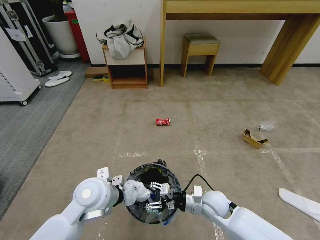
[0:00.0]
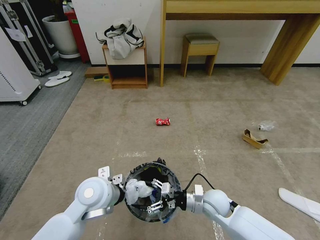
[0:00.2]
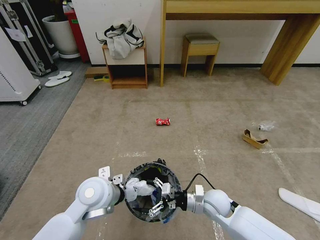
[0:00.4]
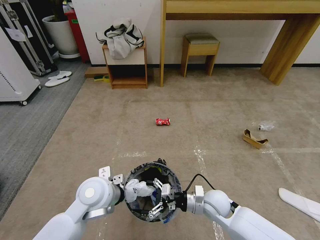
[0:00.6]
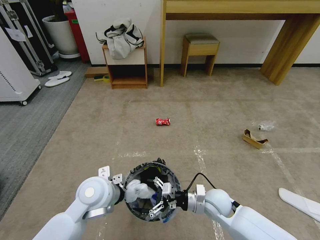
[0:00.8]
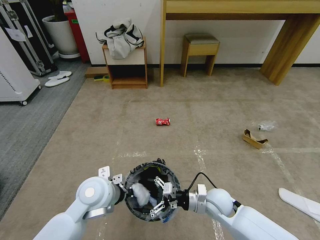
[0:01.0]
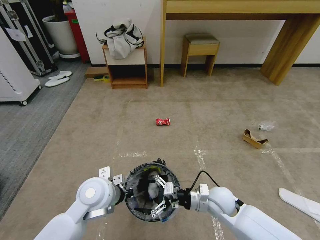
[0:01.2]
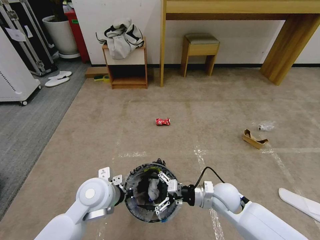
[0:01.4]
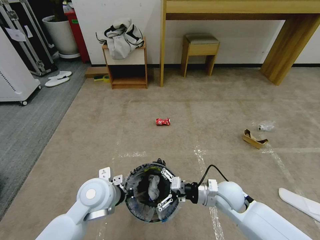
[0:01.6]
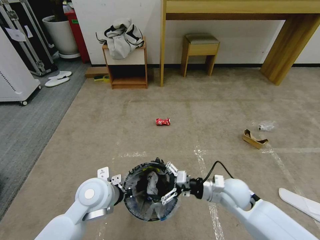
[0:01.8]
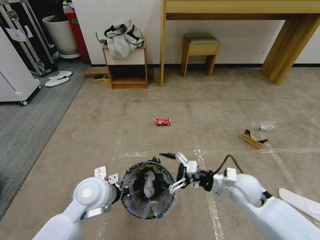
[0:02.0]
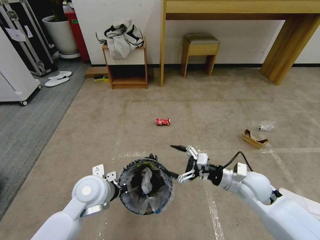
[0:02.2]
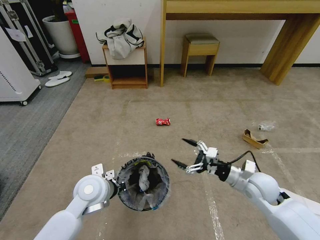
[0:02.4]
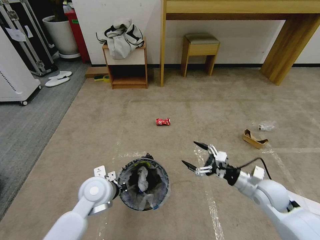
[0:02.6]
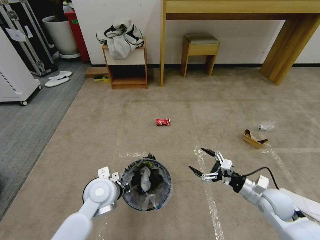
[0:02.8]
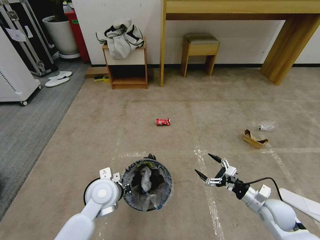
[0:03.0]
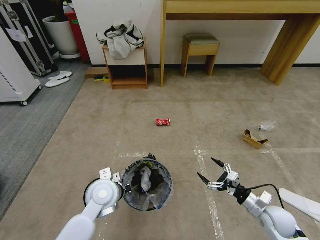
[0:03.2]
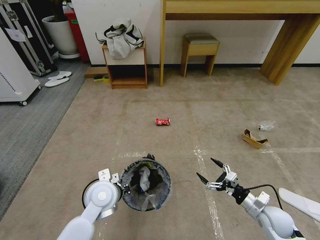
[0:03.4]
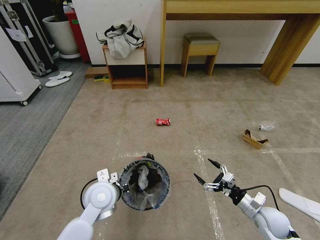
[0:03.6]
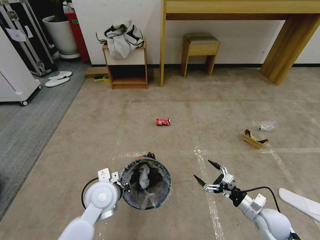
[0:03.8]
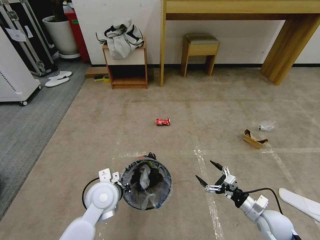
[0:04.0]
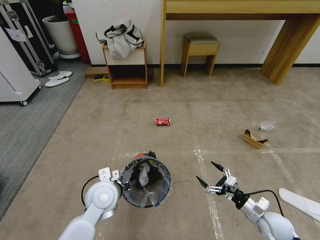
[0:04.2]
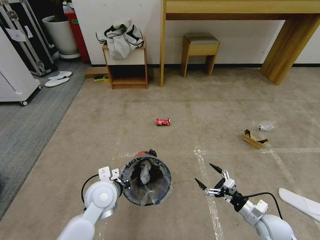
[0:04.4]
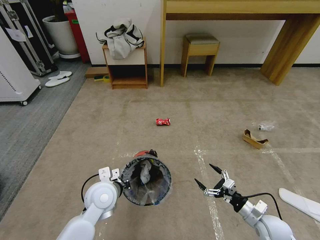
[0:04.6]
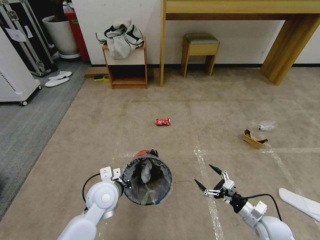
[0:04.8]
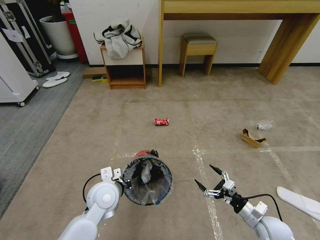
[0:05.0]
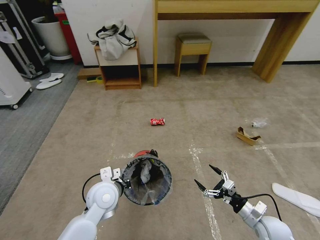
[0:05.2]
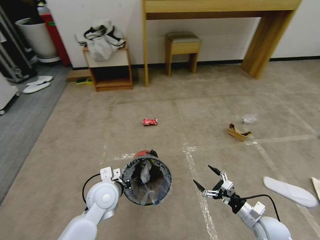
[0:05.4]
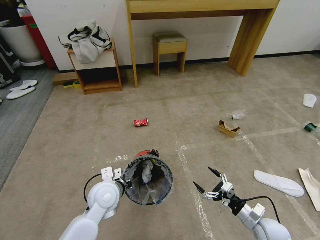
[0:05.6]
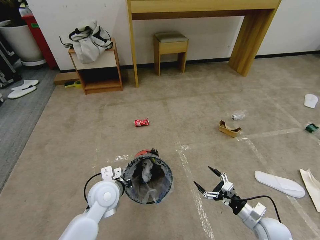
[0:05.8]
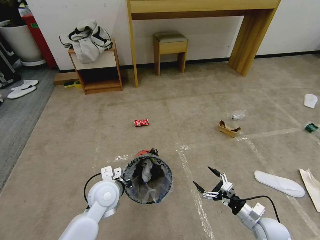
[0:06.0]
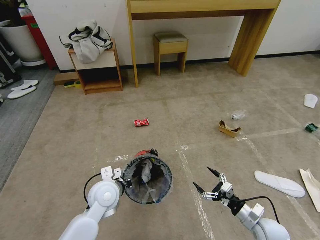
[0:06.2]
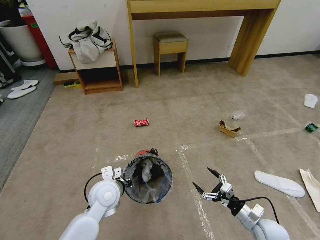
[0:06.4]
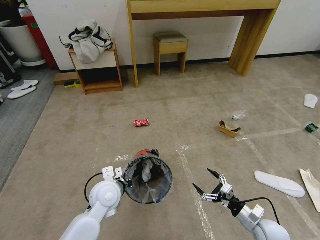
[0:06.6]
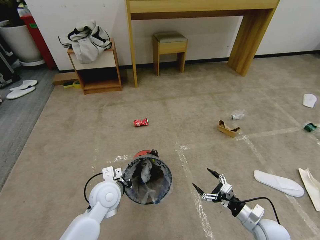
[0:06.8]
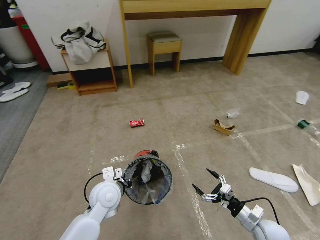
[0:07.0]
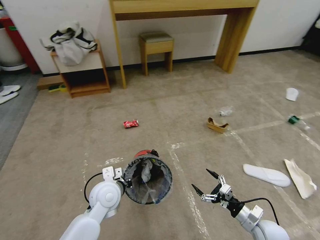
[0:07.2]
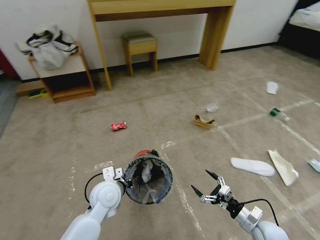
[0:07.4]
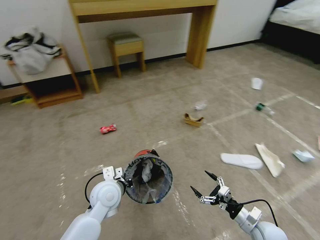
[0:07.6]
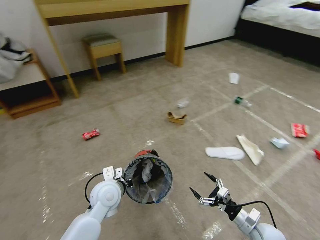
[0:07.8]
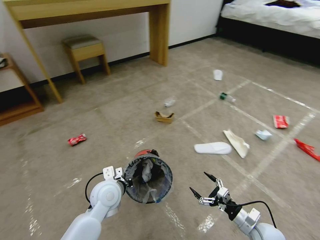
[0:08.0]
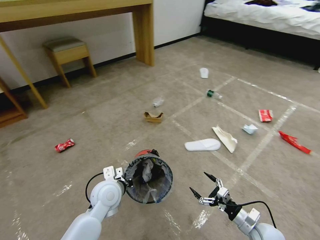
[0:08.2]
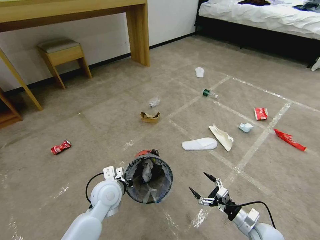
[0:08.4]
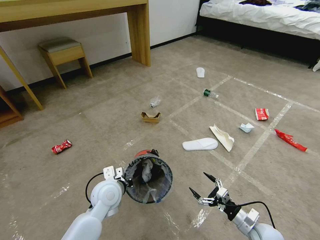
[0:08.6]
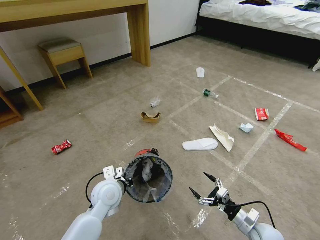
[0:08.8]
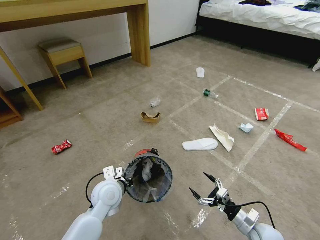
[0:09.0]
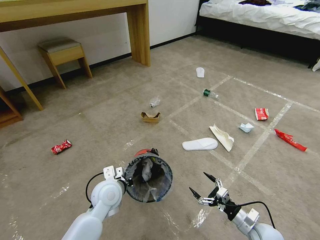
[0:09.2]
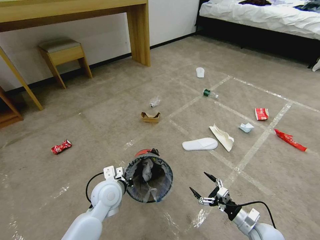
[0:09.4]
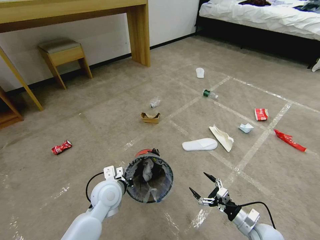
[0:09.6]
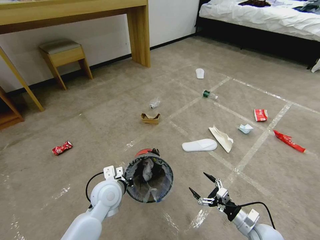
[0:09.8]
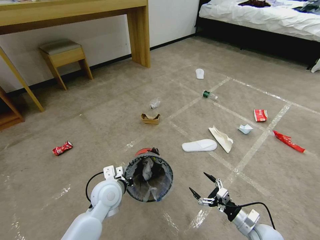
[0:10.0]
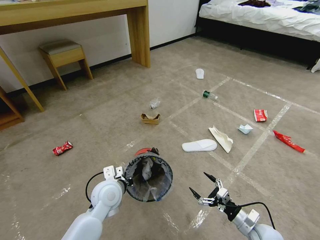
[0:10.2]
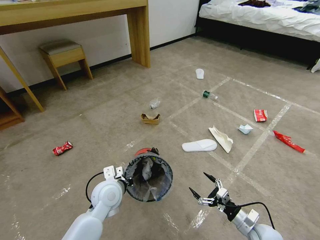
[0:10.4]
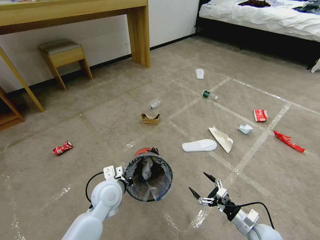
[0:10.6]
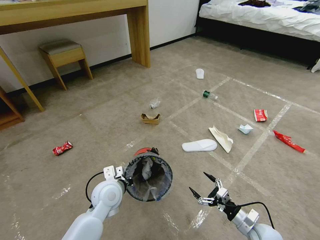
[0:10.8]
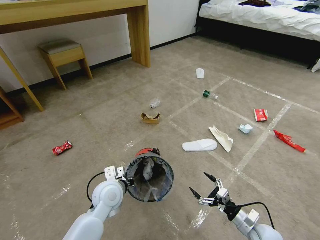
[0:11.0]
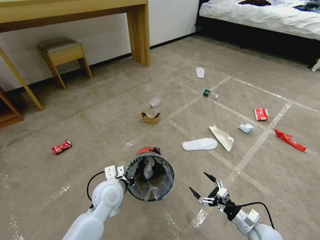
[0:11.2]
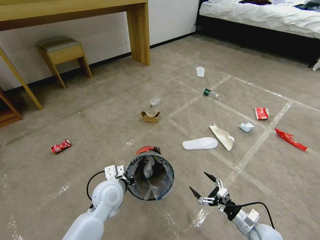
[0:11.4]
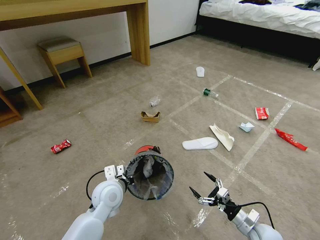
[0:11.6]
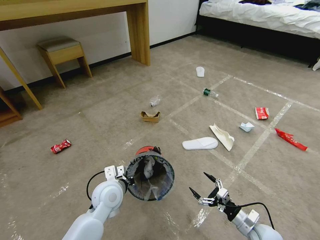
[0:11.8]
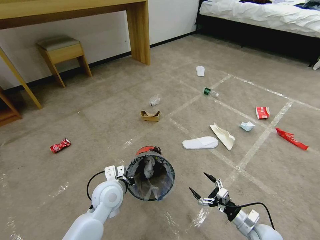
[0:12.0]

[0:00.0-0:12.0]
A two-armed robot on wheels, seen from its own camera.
Task of the whole recording: Pick up the trash bin and place the garbage on the floor into it.
0:00.0 to 0:01.6: The right gripper moves upward, about 5 cm, and opens.
0:01.6 to 0:03.0: The right gripper moves to the right, about 15 cm.
0:03.0 to 0:04.4: The right gripper changes place by about 5 cm.
0:09.0 to 0:12.0: The two grippers keep their place.

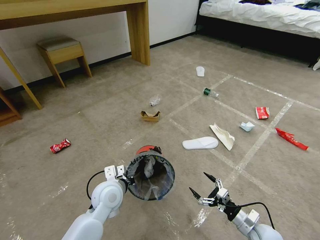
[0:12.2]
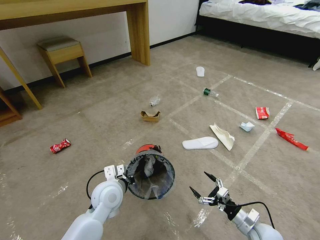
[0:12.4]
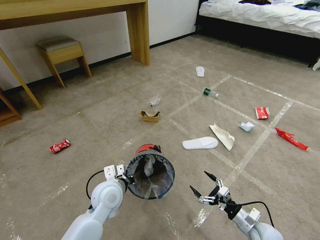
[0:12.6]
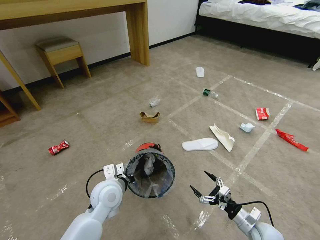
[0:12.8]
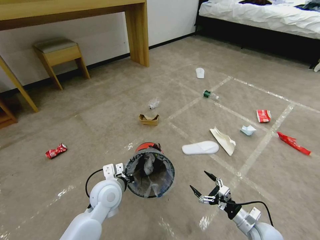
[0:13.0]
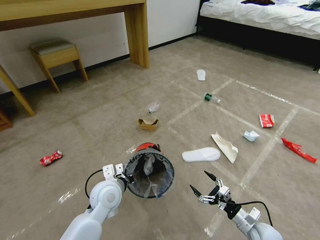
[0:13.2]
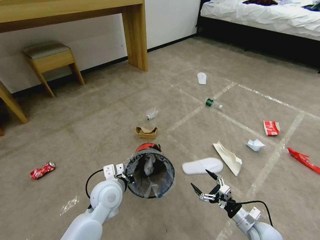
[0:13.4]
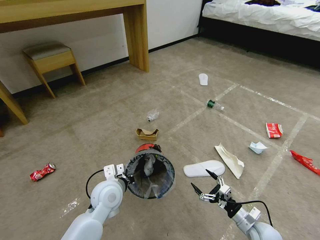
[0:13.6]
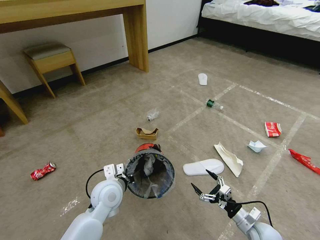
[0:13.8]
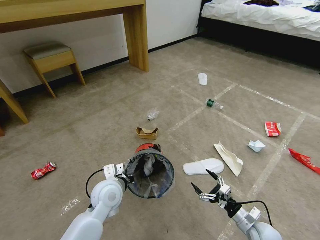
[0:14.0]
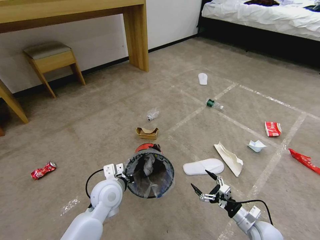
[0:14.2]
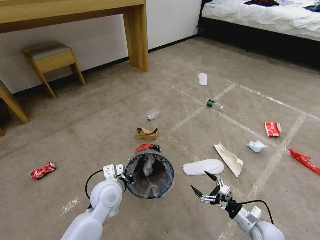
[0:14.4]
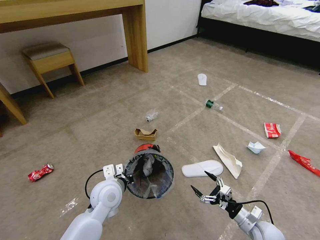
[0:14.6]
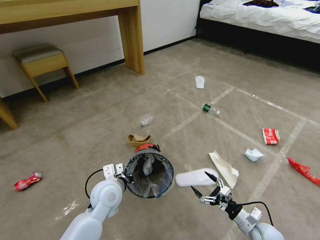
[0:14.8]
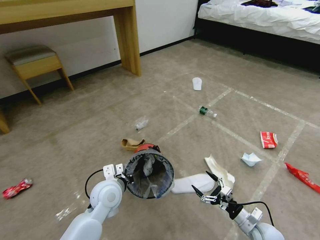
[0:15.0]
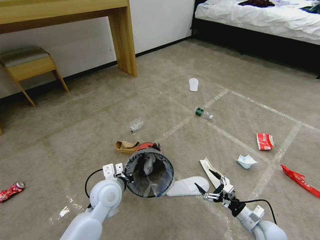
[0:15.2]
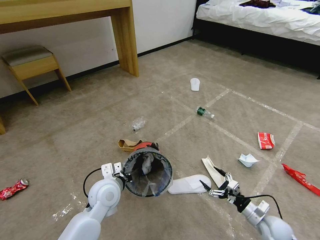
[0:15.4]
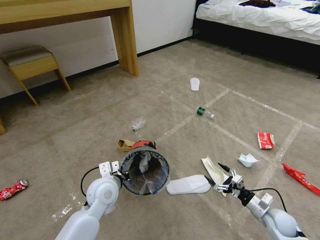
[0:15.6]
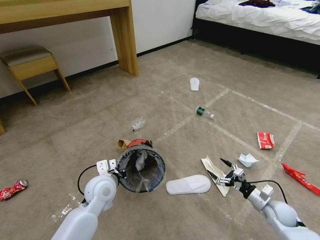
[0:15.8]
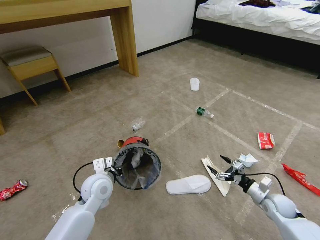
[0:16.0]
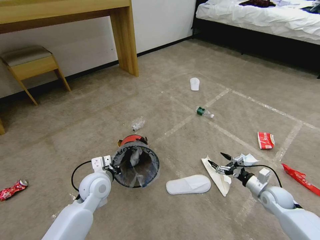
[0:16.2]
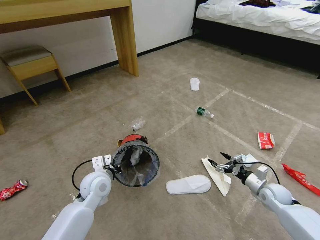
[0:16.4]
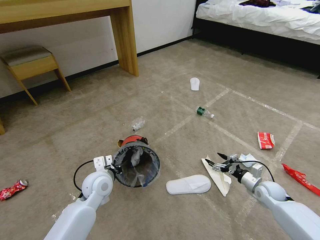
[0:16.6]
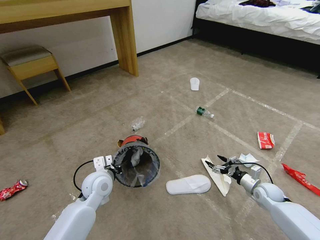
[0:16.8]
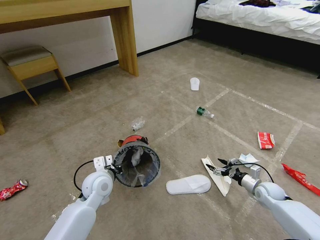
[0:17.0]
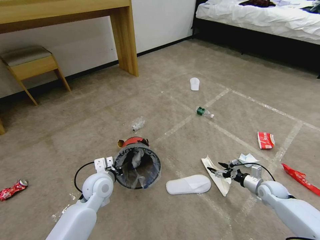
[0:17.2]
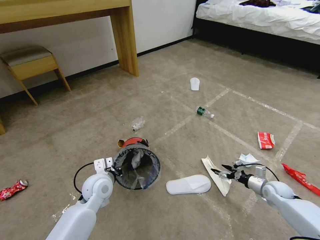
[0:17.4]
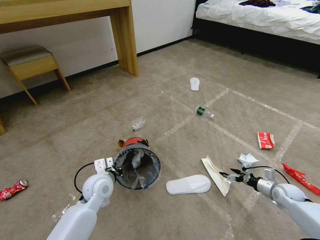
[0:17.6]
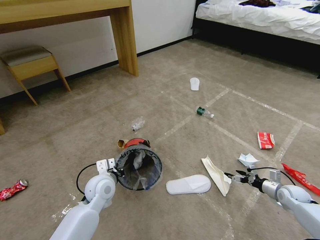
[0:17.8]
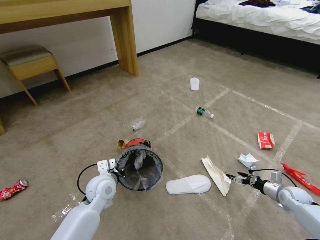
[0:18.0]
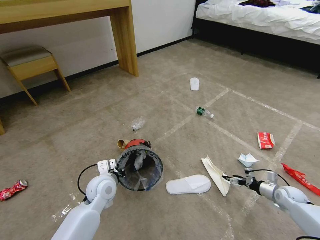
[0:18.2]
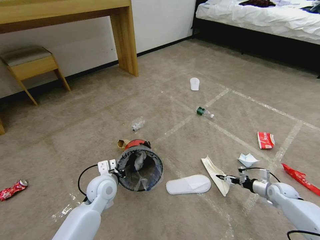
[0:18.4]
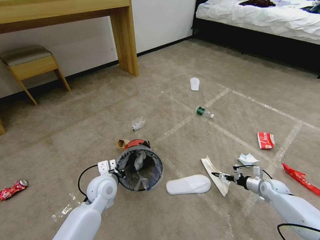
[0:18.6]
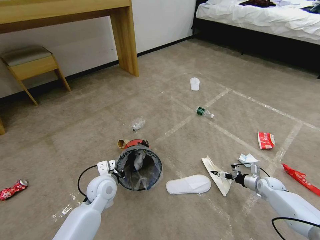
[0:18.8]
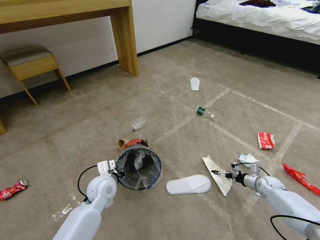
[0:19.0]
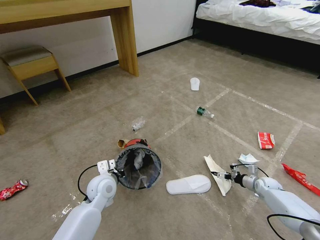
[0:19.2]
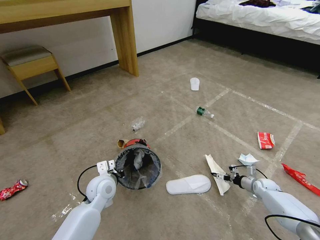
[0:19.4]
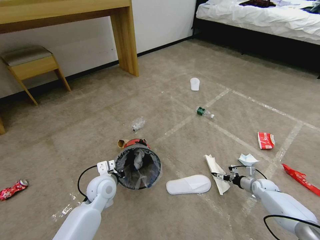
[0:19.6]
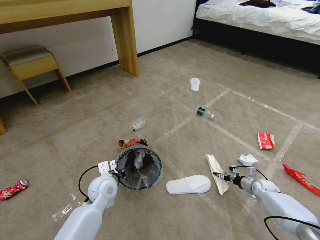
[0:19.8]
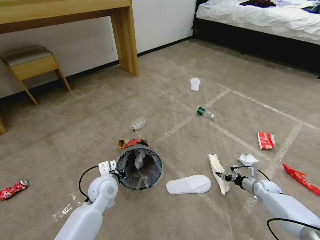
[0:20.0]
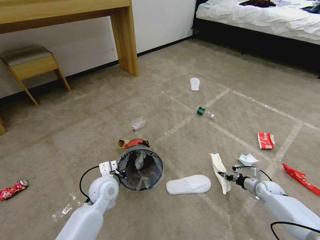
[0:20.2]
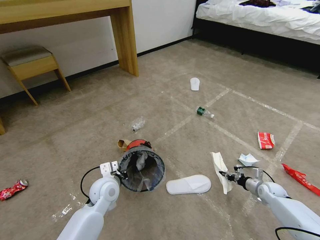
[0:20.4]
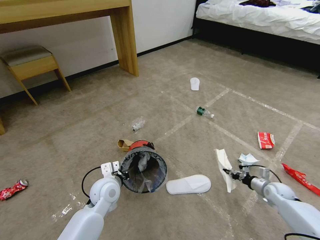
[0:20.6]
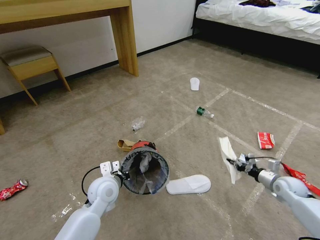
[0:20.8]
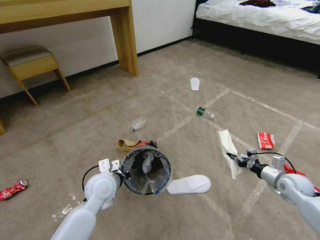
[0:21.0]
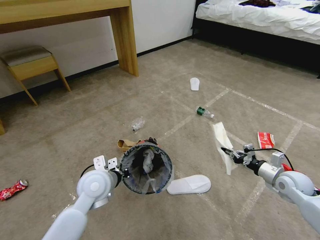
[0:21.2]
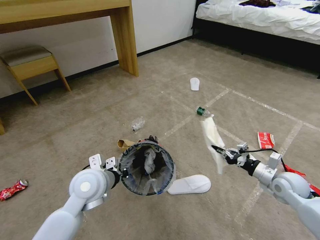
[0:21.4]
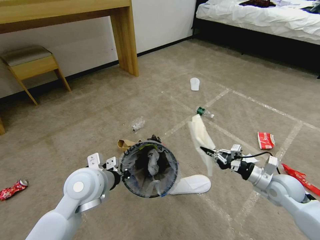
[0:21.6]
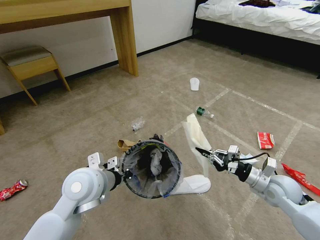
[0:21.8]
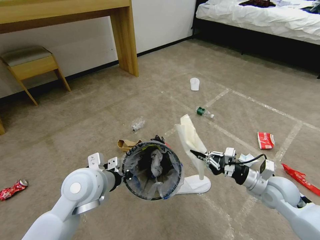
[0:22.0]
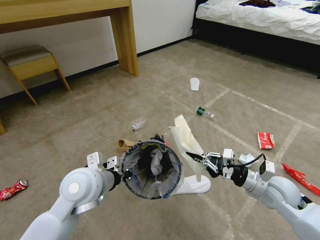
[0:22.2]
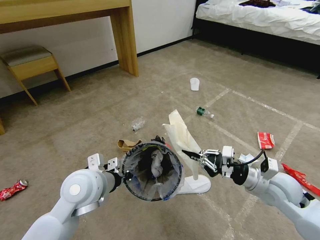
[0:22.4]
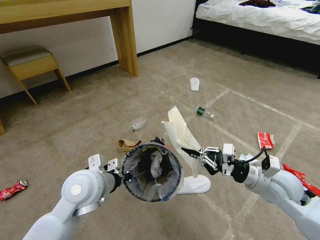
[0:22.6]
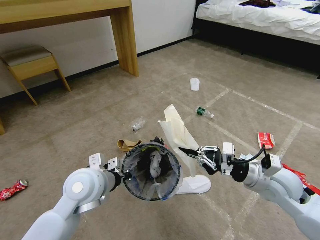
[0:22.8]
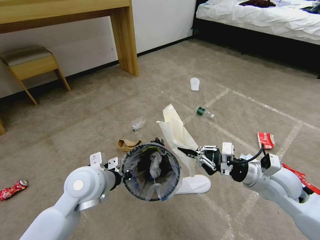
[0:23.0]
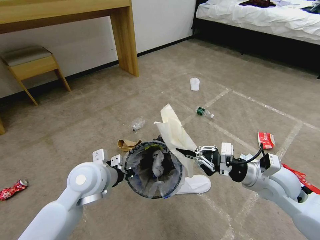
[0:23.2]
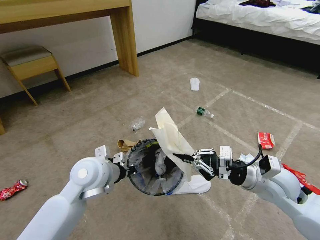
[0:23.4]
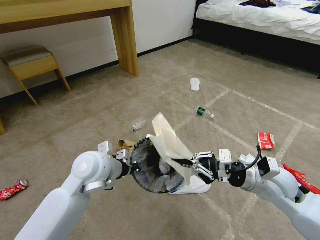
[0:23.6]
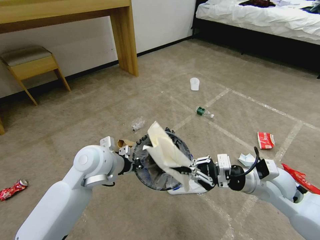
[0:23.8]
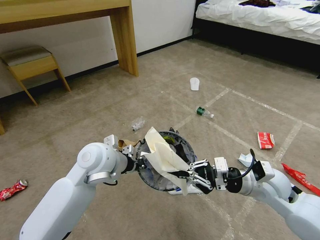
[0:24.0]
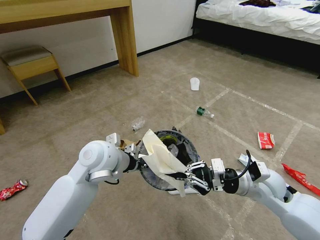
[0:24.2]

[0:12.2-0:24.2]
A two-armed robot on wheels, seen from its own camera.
Task of the whole recording: Pick up the trash bin and place the garbage on the floor into it.
0:13.8 to 0:15.2: The grippers make only small movements.
0:15.2 to 0:16.6: The left gripper shifts by approximately 5 cm. Meanwhile the right gripper travels forward and to the right by approximately 15 cm.
0:16.6 to 0:18.2: The right gripper goes approximately 10 cm to the right.
0:18.2 to 0:19.8: The right gripper moves downward and forward, approximately 10 cm, and closes.
0:19.8 to 0:21.2: The left gripper moves upward, roughly 10 cm. The right gripper goes roughly 20 cm upward, and closes.
0:21.2 to 0:22.6: The left gripper heads upward, covering roughly 5 cm, while the right gripper heads to the left and upward, covering about 15 cm.
0:22.6 to 0:24.2: The left gripper is displaced forward by roughly 5 cm.
